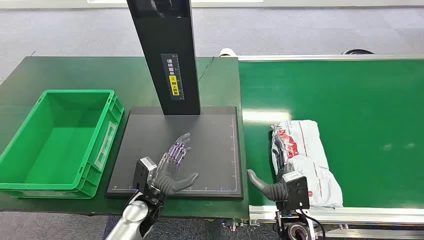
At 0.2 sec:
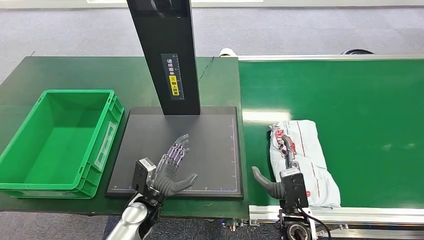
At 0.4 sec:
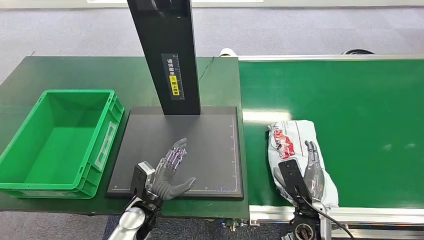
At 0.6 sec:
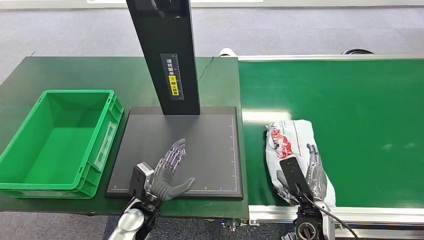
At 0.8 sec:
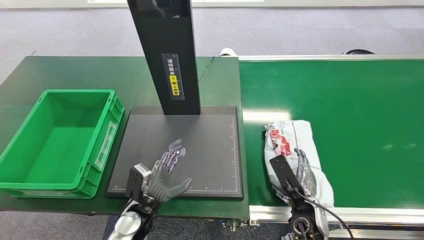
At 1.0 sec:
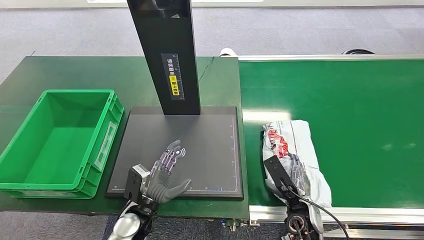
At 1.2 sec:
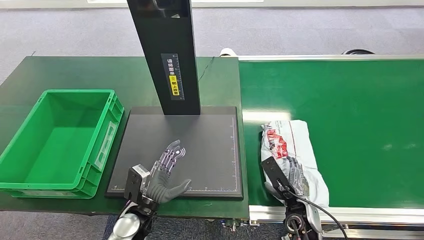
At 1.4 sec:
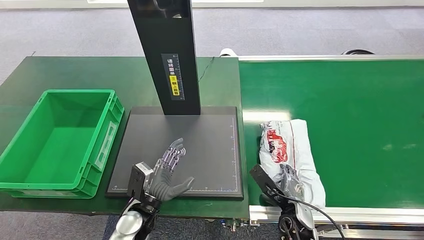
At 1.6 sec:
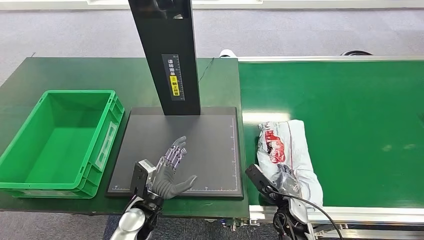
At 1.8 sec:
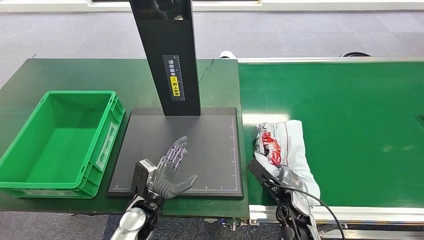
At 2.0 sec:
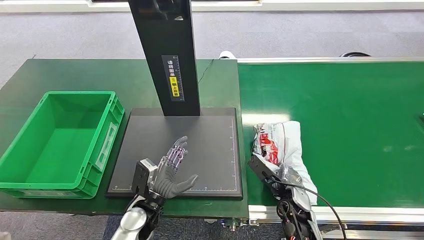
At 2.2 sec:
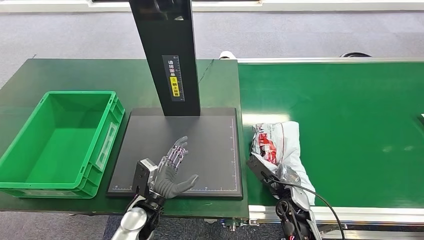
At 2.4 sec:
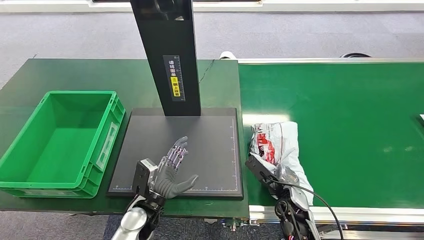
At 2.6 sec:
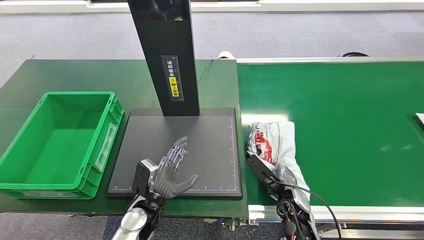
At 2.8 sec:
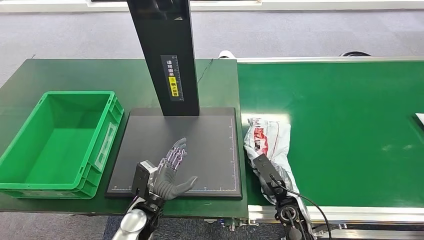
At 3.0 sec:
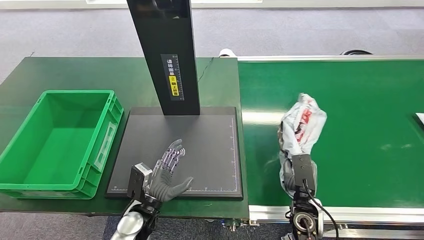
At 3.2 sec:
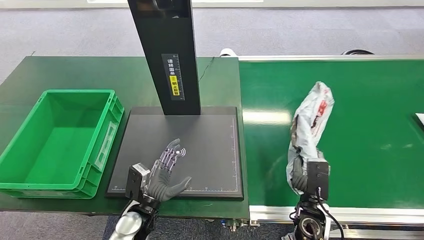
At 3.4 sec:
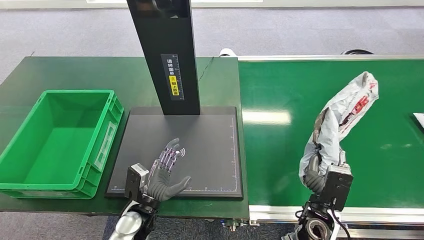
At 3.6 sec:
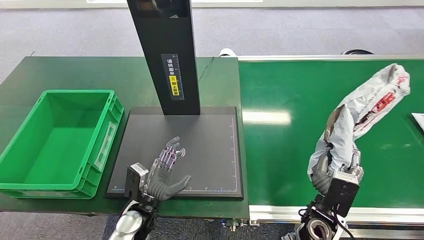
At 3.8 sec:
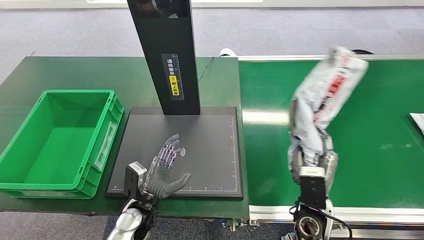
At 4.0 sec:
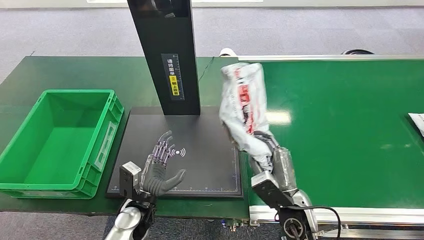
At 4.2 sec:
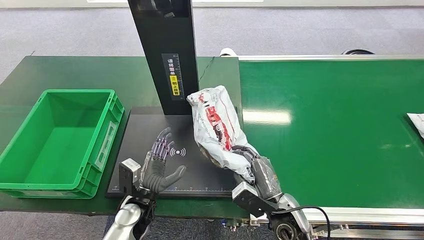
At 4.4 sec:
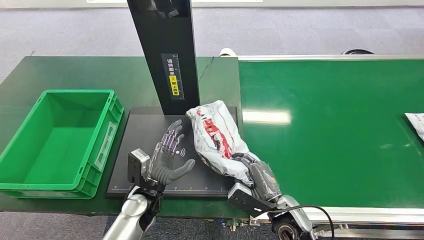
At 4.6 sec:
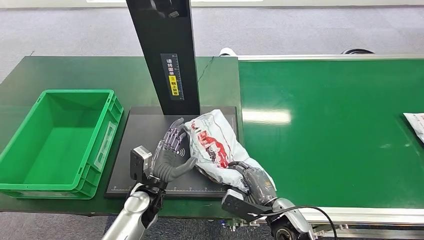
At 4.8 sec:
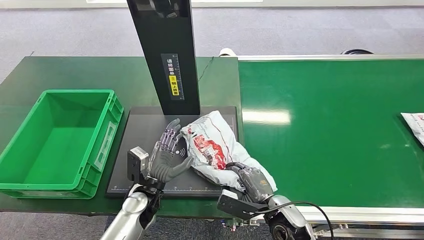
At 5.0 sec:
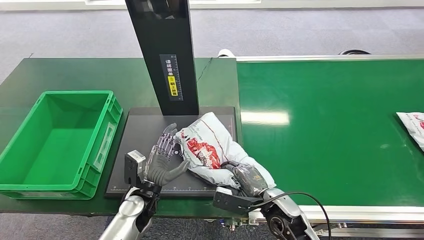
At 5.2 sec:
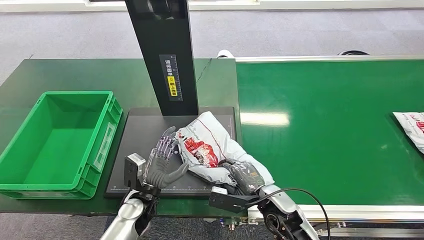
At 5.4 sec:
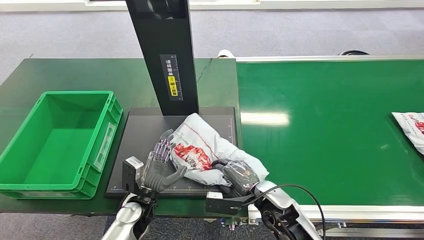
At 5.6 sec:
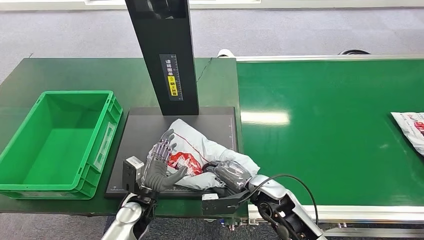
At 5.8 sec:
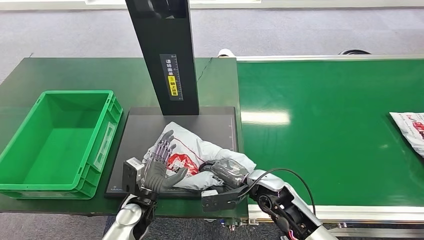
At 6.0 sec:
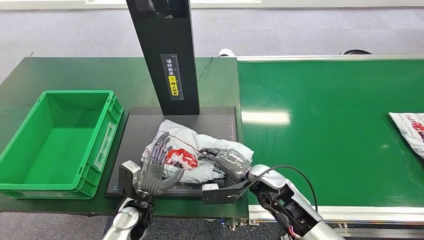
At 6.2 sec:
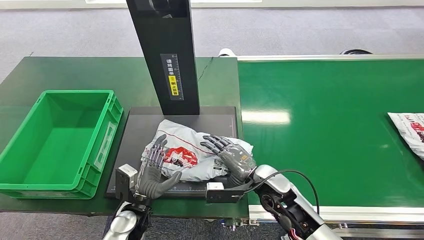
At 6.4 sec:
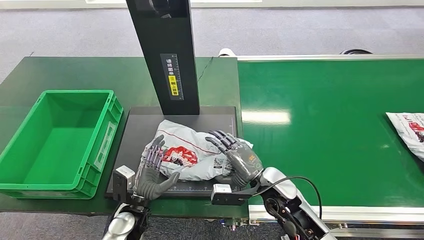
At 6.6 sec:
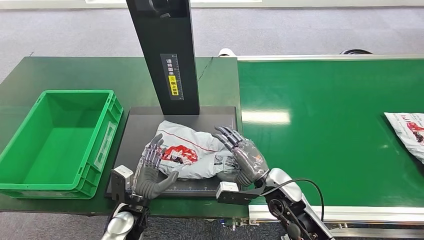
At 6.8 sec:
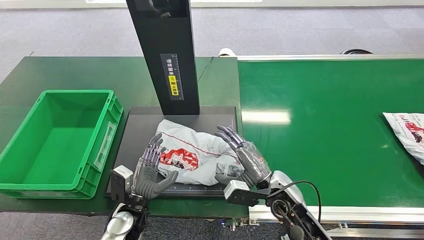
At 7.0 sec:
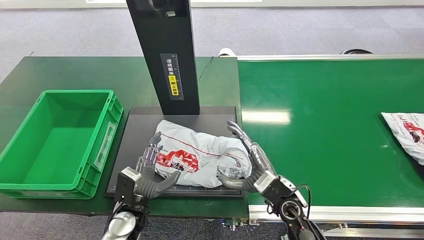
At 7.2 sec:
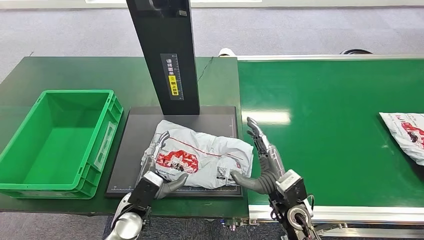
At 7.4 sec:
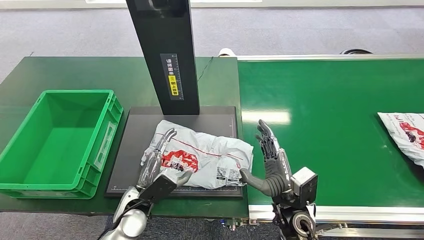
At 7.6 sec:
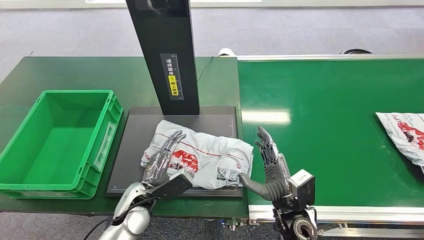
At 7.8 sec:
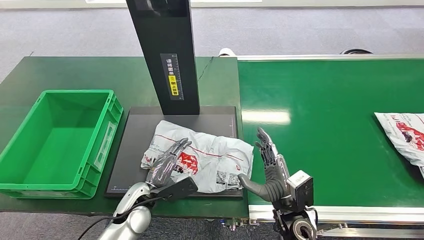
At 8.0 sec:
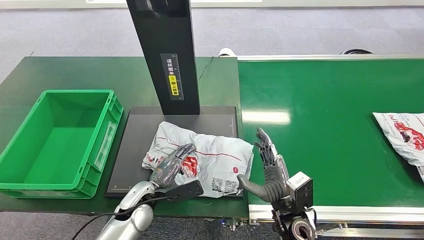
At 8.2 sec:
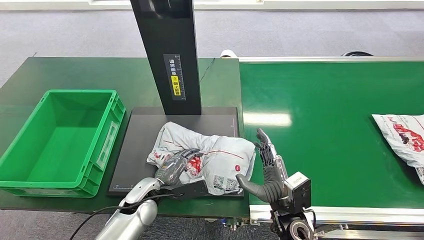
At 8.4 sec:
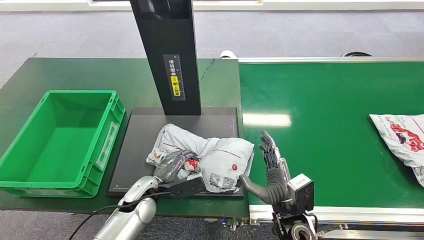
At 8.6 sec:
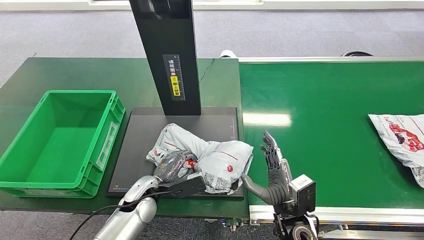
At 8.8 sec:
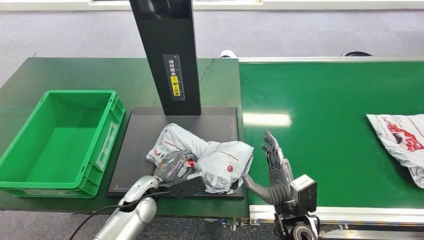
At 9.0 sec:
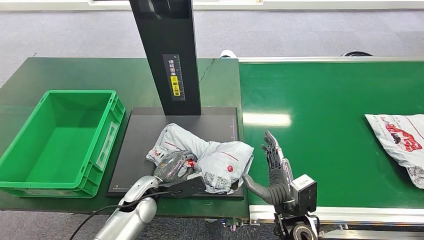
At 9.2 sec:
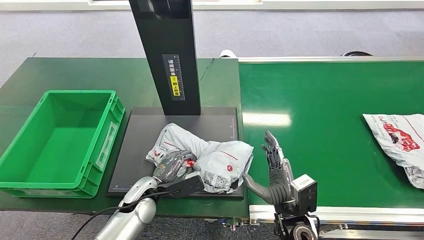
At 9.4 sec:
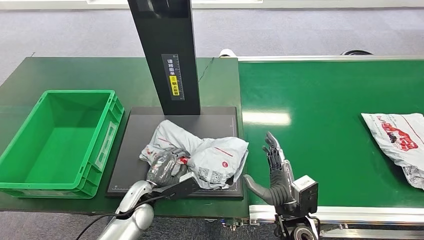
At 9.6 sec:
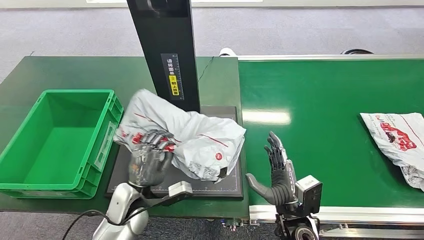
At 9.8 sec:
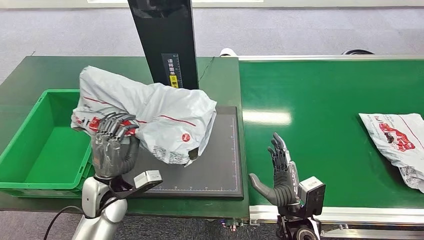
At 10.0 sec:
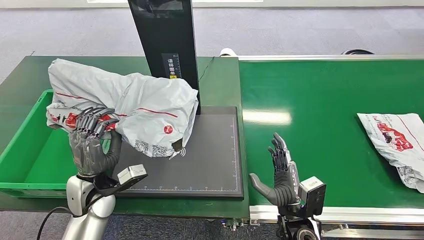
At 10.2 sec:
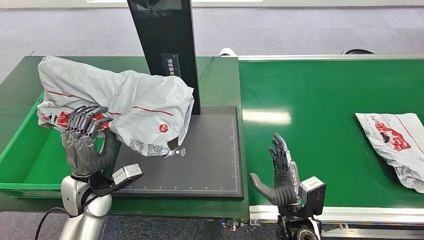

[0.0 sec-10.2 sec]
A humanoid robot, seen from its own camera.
Step, 0.0 sec to 3.6 sec: Pick up the package from the conveyor belt.
Step, 4.0 sec to 7.0 sec: Place the package onto the inbound machine.
Step, 7.4 sec to 10.0 sec: Pick up the package from the inbound machine.
3.0 sec to 4.4 sec: The right hand changes place by approximately 5 cm.
4.4 sec to 5.8 sec: The right hand moves forward, approximately 10 cm.
5.8 sec to 7.2 sec: The right hand moves some 5 cm.

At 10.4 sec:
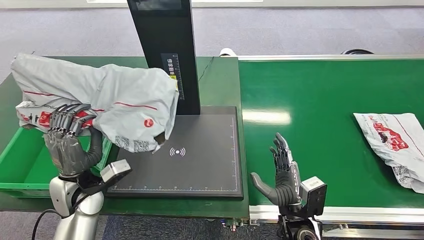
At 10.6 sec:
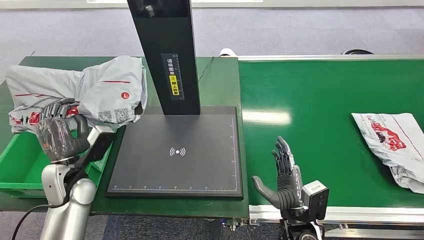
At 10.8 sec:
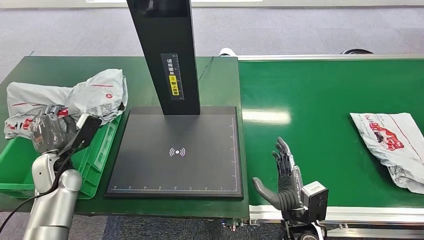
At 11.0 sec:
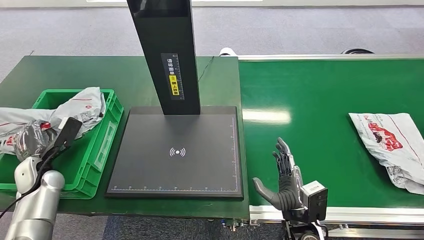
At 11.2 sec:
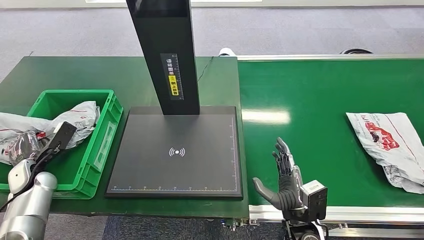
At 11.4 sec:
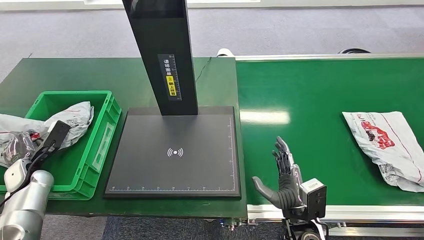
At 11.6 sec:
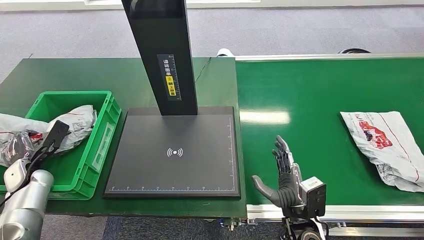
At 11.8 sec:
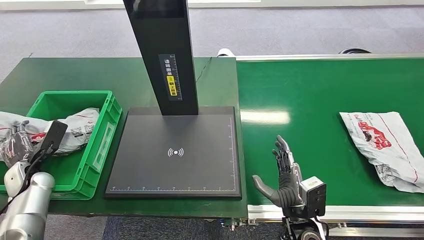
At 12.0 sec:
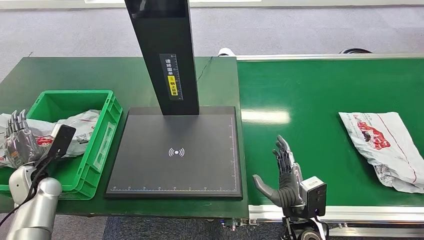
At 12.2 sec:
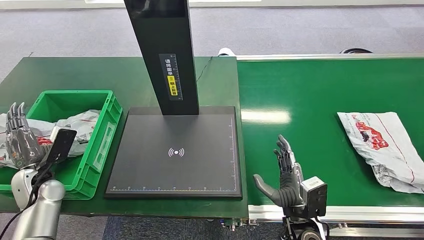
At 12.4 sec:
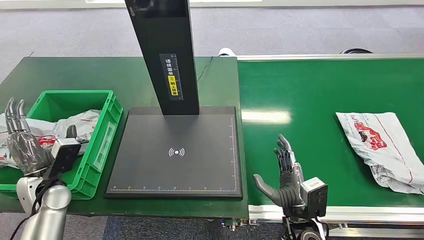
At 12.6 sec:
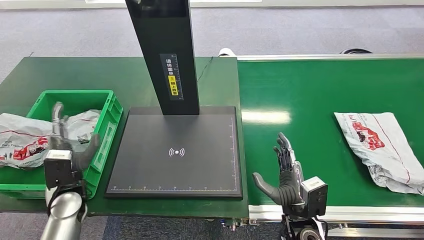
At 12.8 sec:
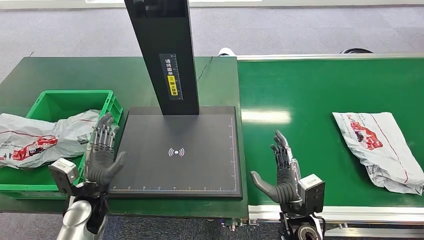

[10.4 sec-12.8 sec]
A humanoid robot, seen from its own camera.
Step, 10.4 sec to 12.8 sec: Place the package into the parcel locker.
